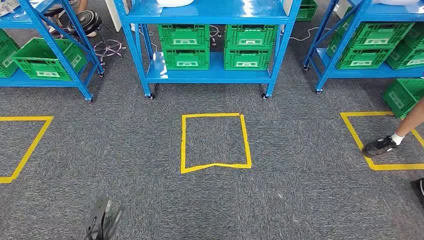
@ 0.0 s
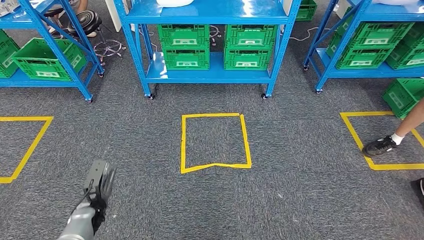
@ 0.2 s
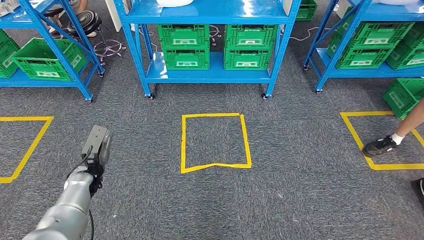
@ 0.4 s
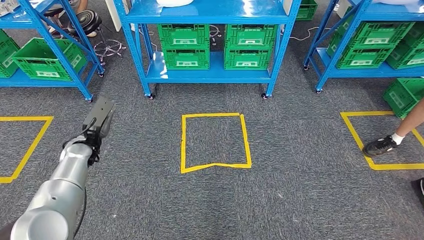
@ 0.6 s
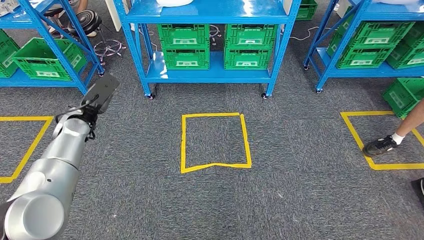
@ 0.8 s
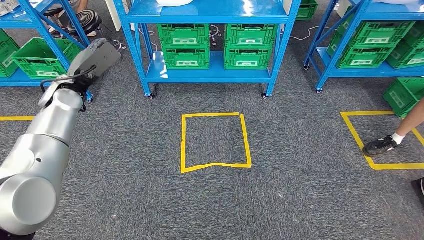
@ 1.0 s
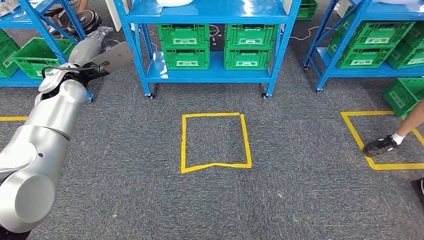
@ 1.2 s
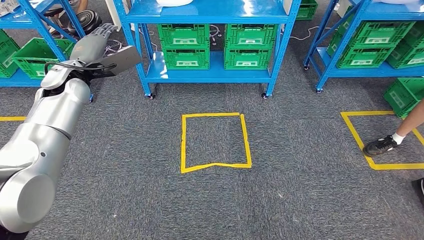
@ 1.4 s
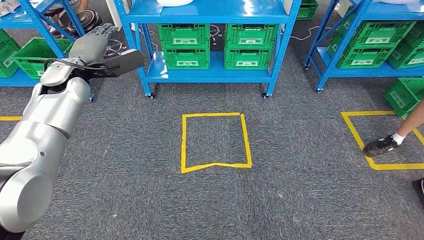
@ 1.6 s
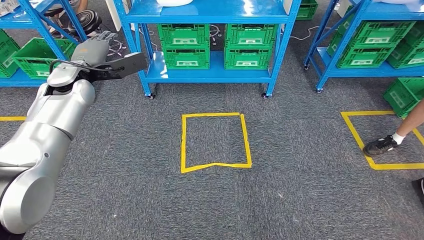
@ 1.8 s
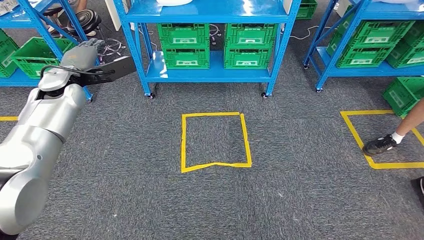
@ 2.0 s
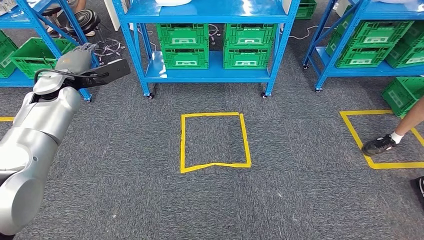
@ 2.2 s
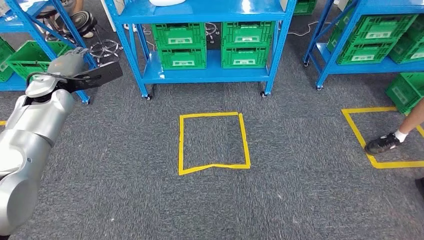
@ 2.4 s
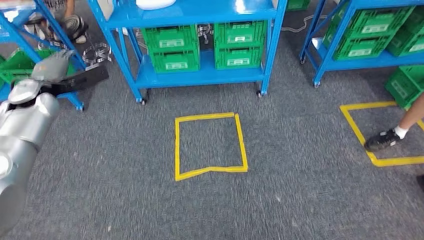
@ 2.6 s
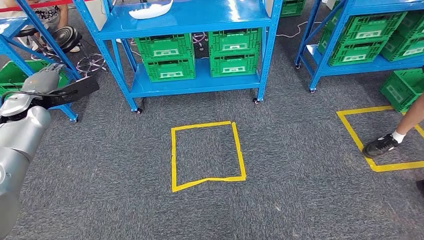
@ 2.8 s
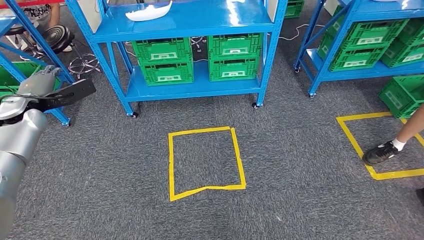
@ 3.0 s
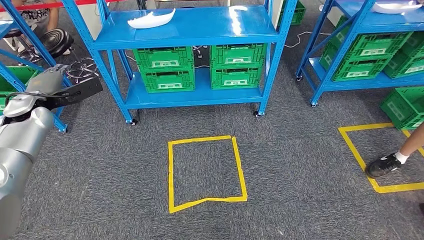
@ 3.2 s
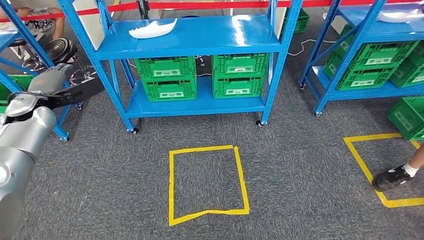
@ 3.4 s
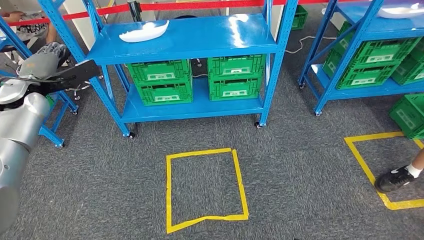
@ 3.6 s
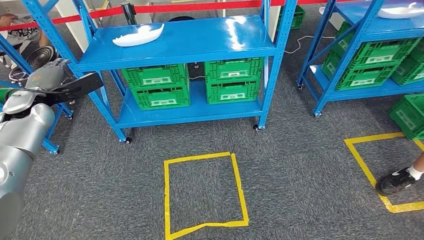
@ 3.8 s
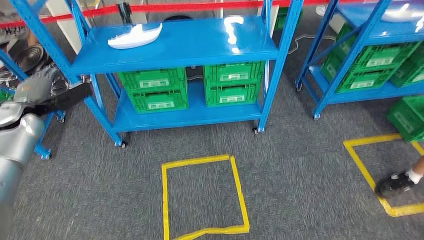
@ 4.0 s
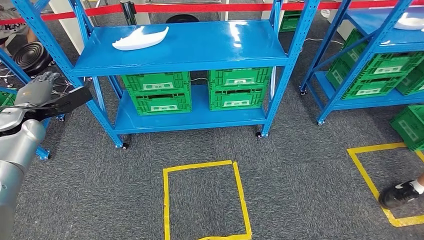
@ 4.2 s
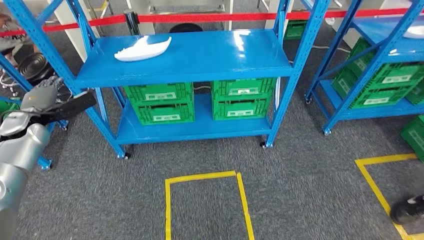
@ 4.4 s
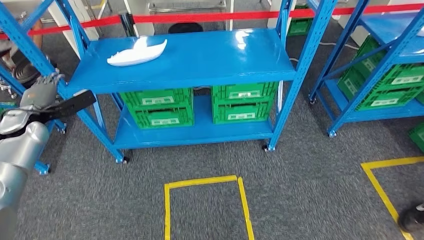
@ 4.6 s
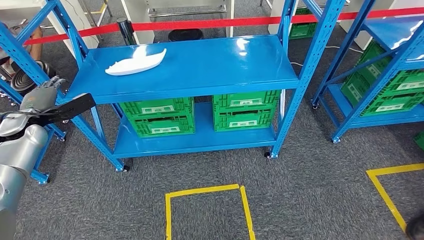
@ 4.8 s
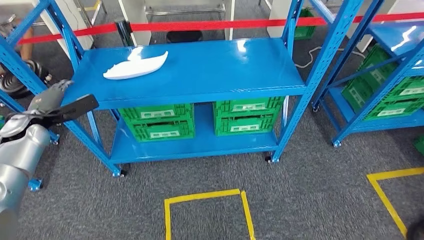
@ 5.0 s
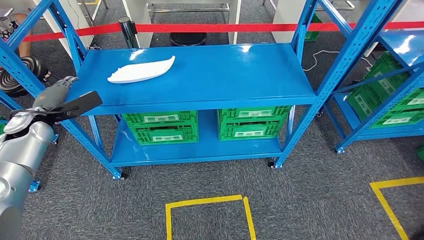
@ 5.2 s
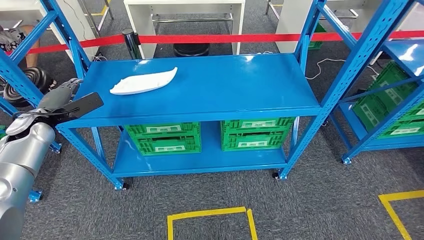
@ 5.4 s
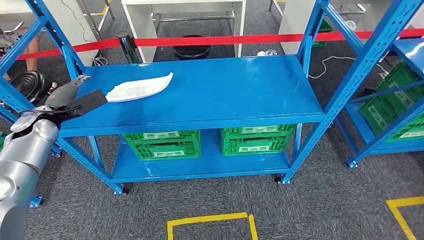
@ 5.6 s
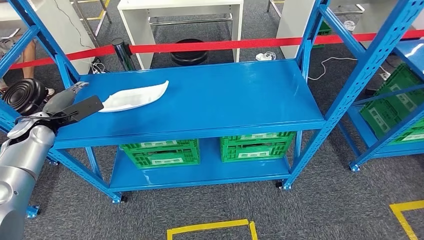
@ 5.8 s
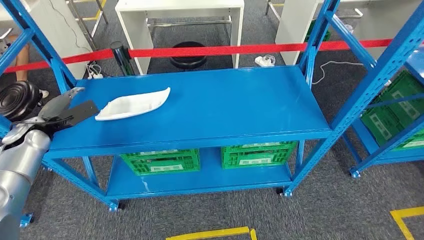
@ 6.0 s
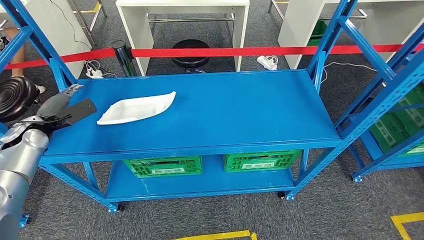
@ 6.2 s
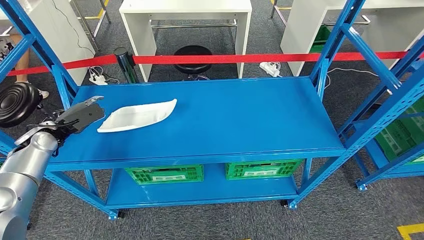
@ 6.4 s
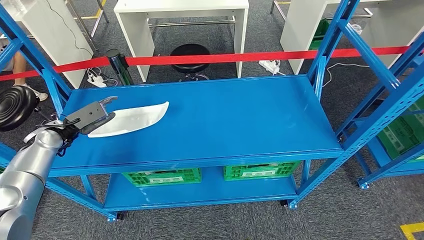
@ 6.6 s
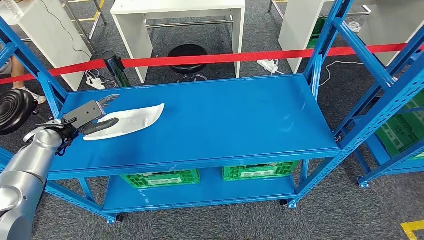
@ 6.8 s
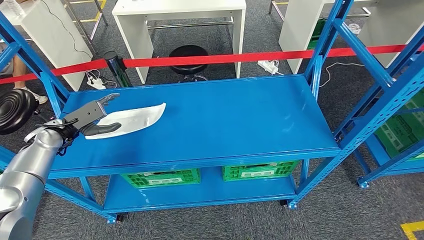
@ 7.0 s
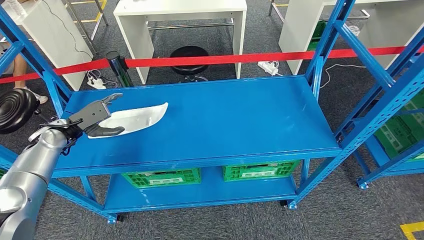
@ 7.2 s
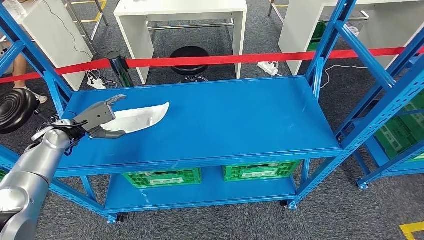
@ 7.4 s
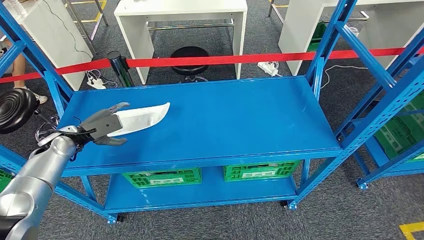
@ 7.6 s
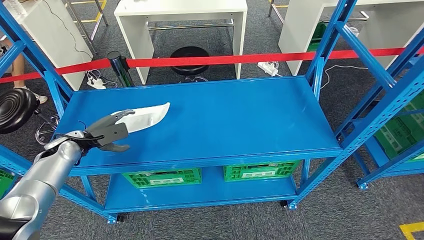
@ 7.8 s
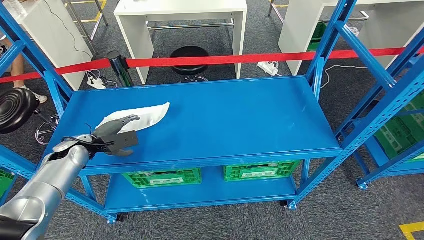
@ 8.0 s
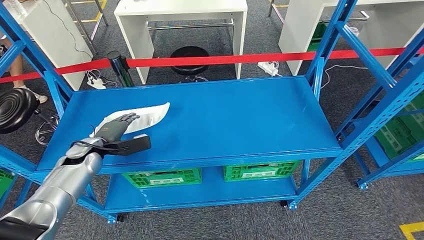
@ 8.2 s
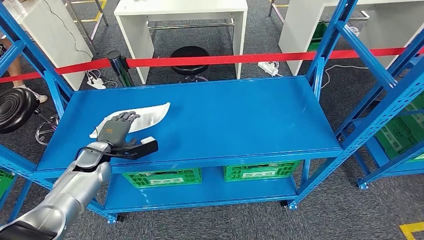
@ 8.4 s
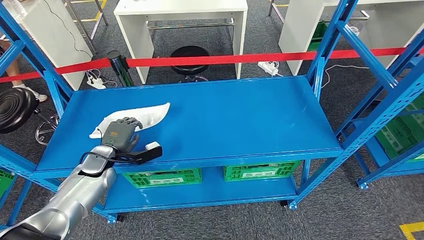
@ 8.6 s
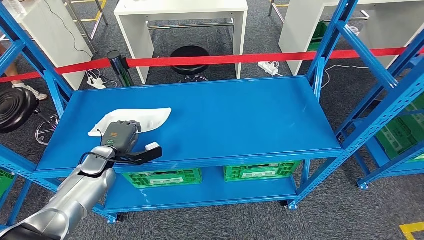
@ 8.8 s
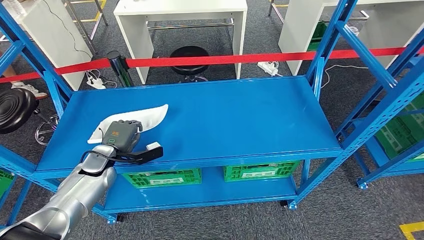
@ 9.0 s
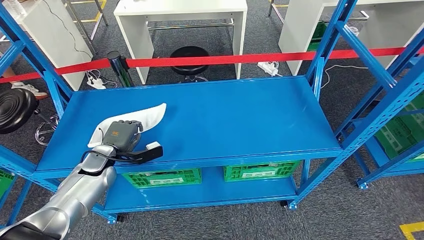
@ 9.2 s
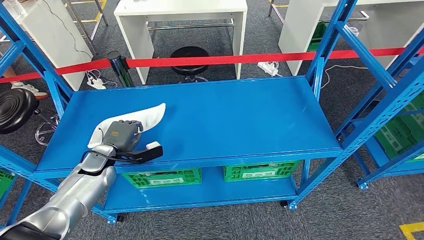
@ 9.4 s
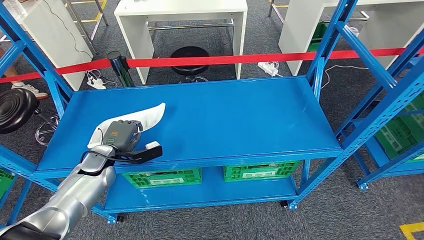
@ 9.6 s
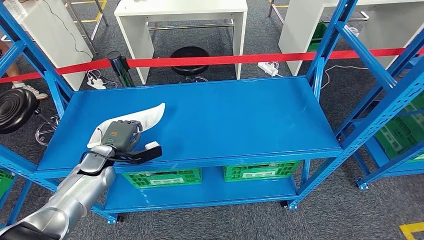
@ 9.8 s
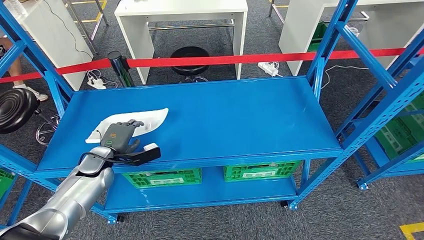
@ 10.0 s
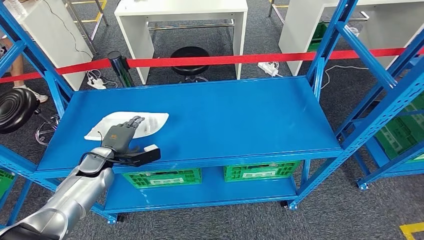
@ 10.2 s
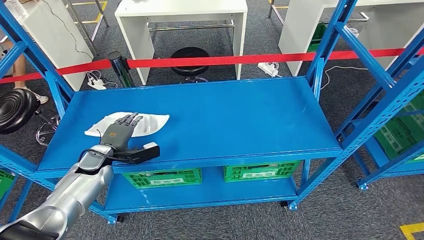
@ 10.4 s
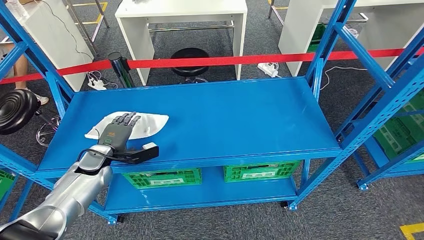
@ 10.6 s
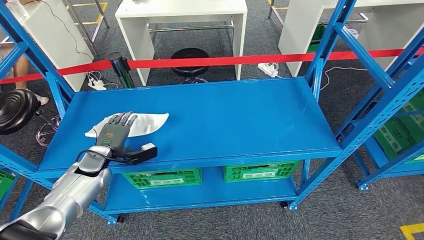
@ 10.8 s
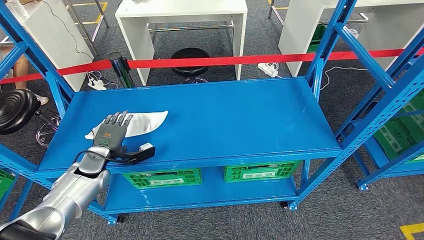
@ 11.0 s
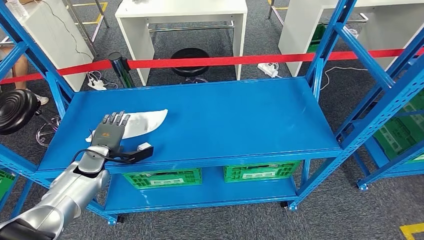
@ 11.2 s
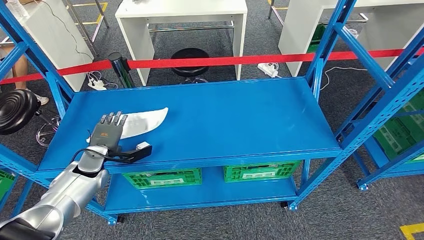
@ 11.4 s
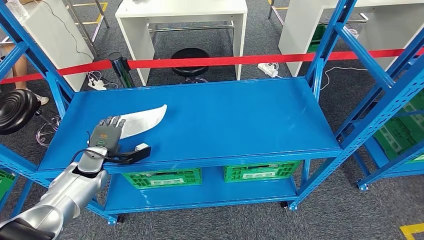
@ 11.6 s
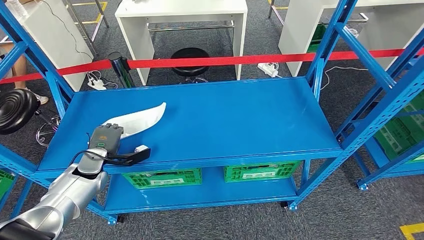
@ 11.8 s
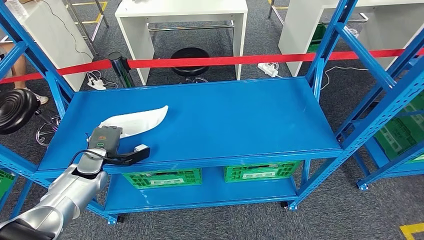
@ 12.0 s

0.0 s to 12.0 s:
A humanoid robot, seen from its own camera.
7.6 to 9.0 s: The left hand heads to the right and downward, covering roughly 10 cm.
9.0 to 10.4 s: The hands move only a little.
10.4 to 12.0 s: The hands move only a little.

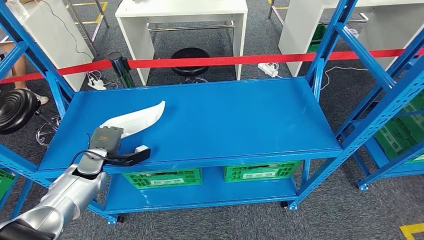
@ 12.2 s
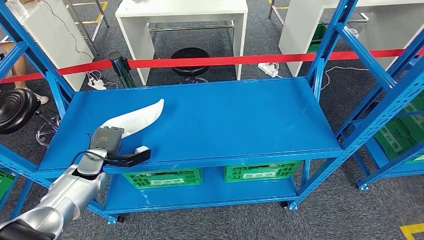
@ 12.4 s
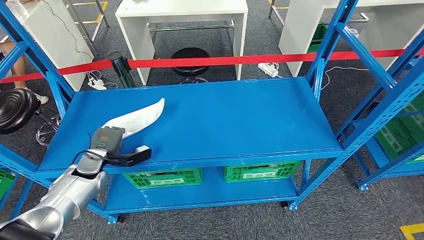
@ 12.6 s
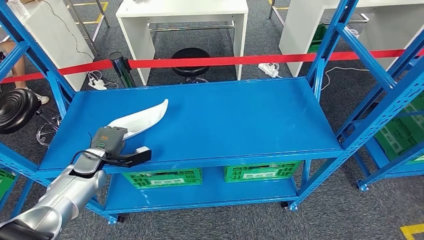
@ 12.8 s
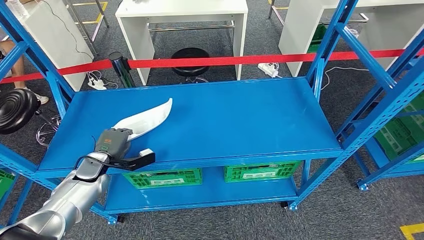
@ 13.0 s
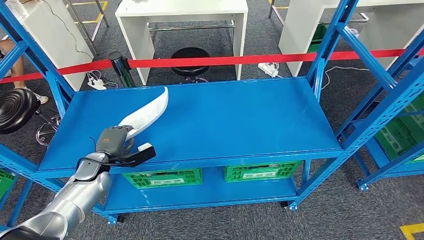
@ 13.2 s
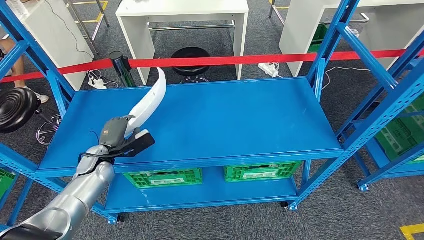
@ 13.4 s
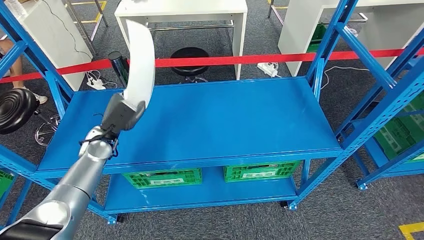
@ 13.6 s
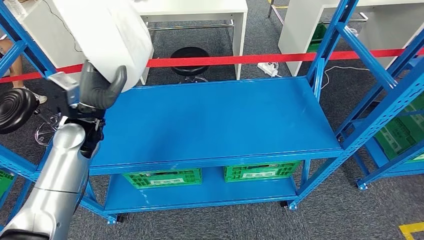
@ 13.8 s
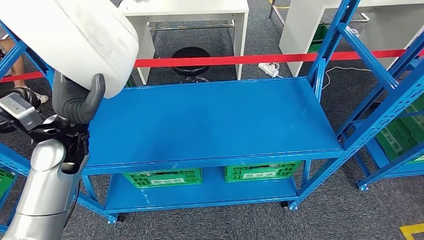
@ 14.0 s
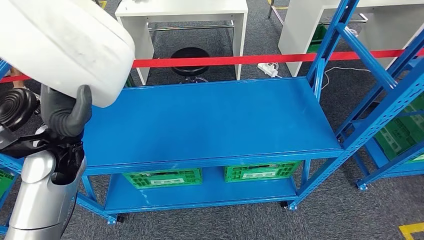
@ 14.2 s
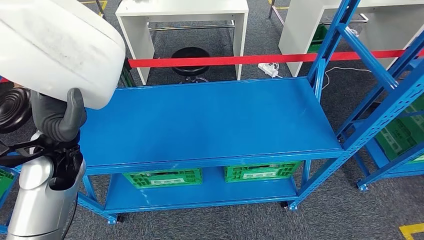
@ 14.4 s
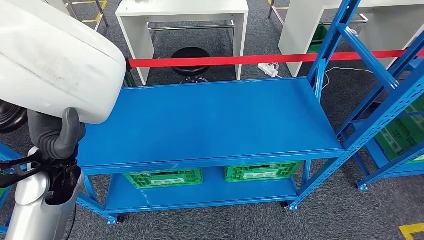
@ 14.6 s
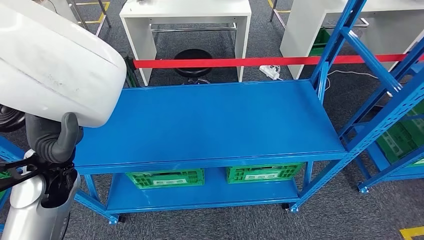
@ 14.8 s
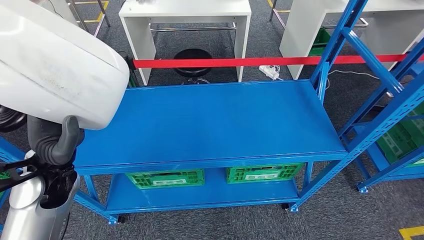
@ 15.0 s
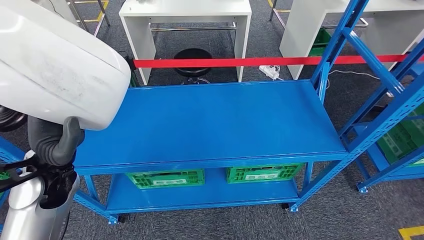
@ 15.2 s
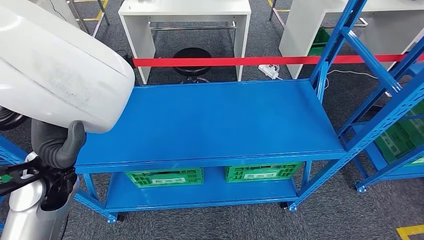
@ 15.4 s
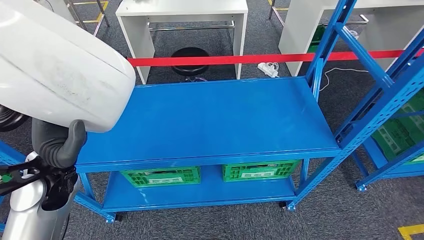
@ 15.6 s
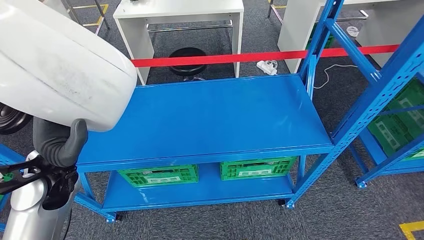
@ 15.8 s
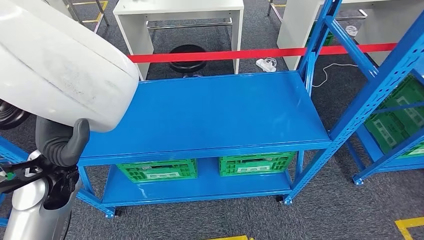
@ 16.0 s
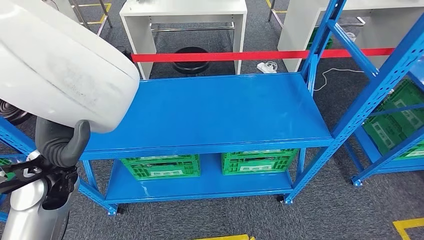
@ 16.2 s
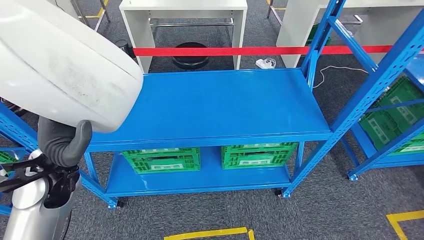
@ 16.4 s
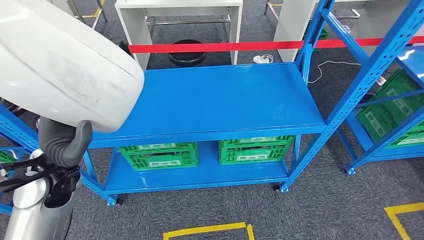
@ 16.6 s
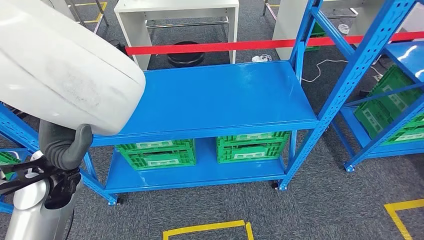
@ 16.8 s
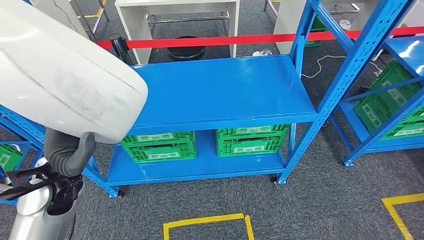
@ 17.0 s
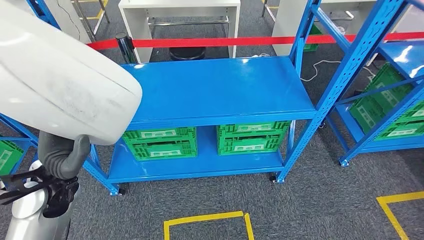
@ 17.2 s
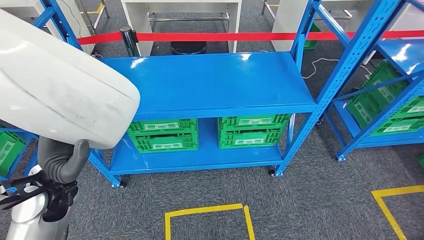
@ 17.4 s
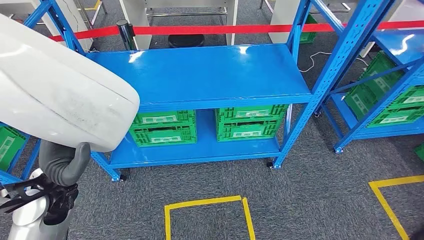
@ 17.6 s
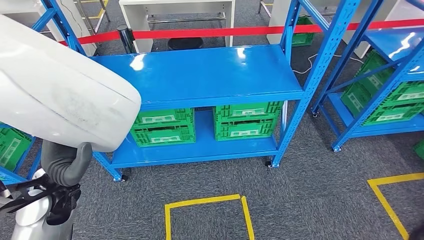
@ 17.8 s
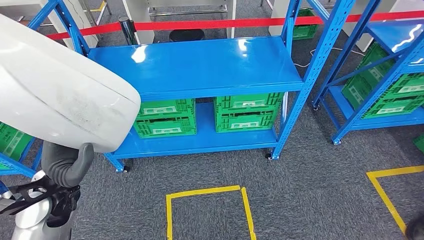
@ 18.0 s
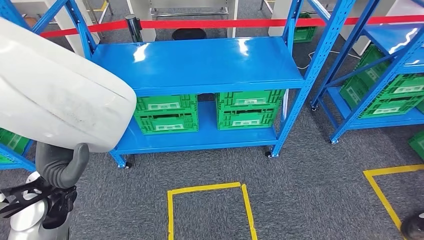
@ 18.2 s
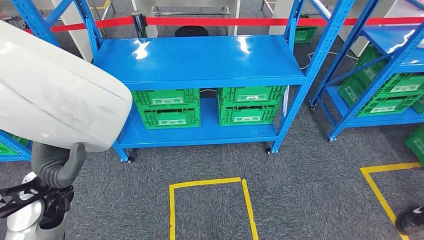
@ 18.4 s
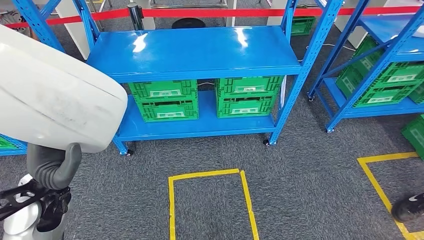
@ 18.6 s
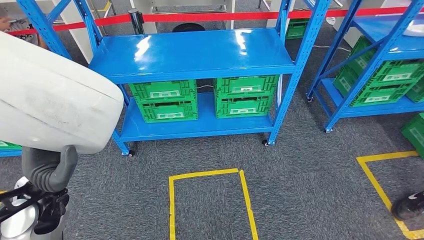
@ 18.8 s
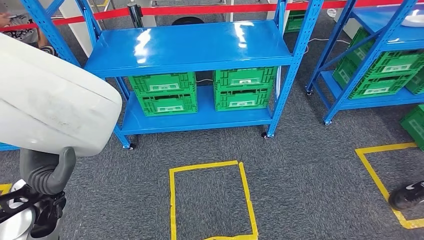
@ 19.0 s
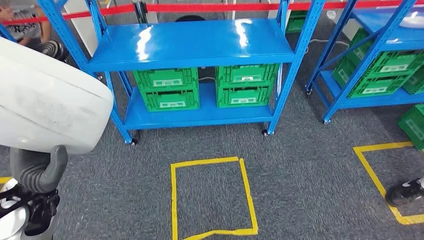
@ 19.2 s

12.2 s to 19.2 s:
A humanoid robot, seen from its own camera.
Step, 12.2 to 14.2 s: Pick up the small parts from the shelf.
12.2 to 13.6 s: The left hand is displaced to the right and upward by some 10 cm.
